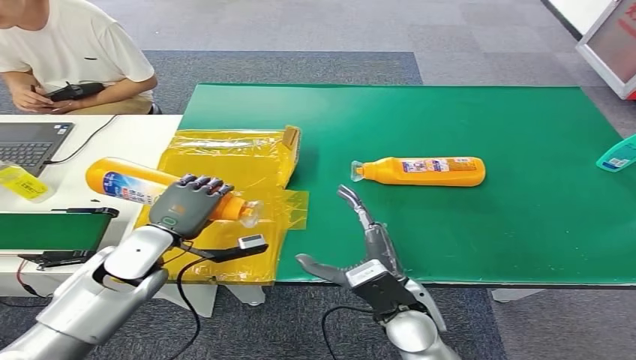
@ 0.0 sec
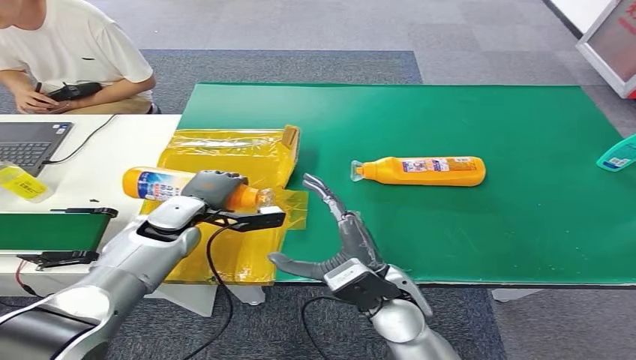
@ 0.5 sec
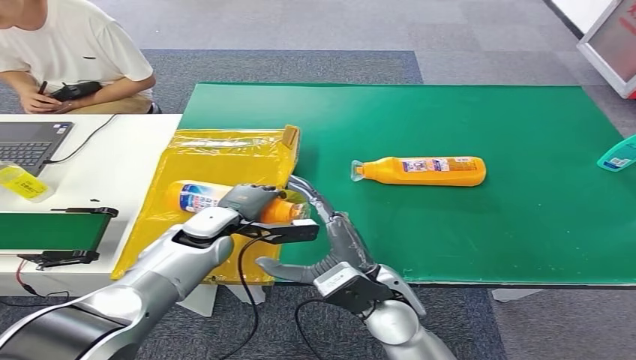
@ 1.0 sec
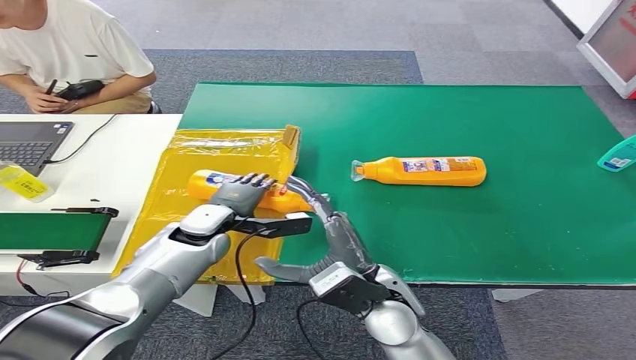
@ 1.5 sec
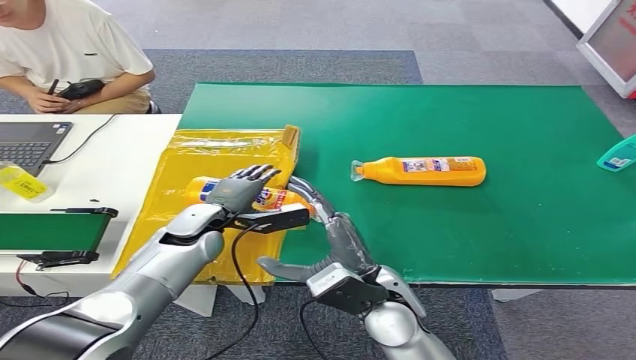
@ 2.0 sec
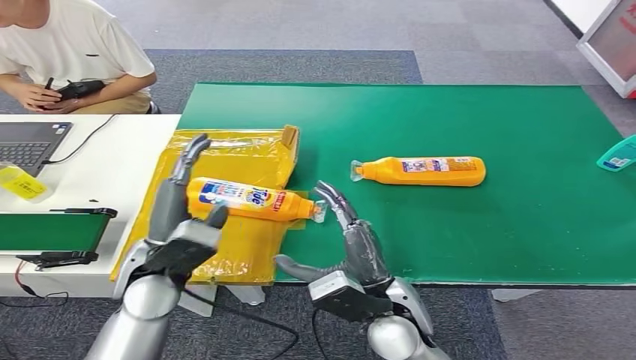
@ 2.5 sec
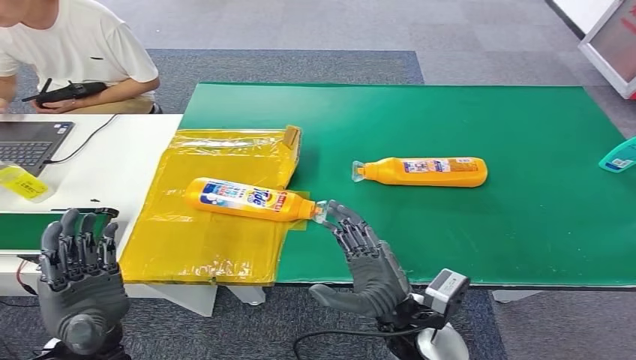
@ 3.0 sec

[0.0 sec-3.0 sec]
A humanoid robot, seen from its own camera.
Step, 0.0 sec to 3.0 sec: Turn the bottle to the front side.
0.0 sec to 1.5 sec: The left hand is displaced to the right and forward by approximately 10 cm. The right hand changes place by about 5 cm.
1.5 sec to 3.0 sec: The left hand shifts about 25 cm backward. Meanwhile the right hand shifts by approximately 5 cm.

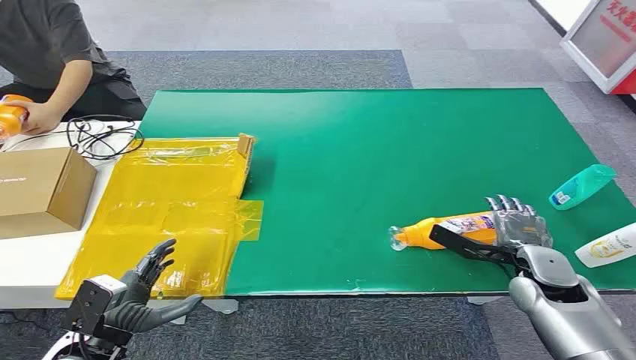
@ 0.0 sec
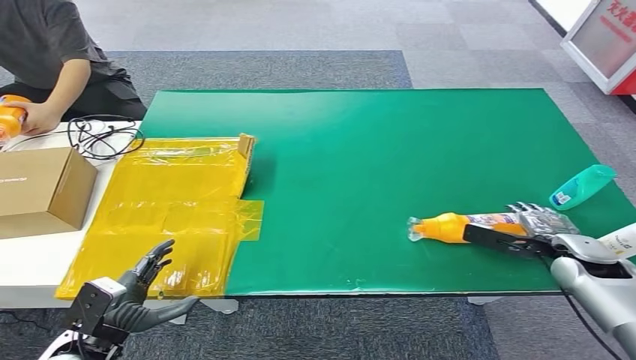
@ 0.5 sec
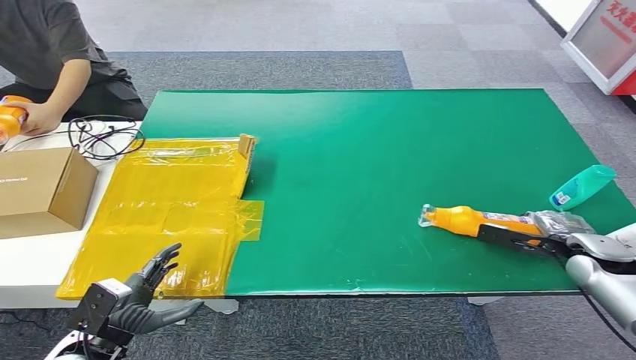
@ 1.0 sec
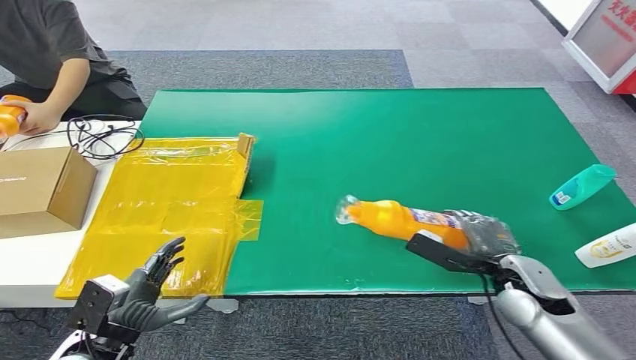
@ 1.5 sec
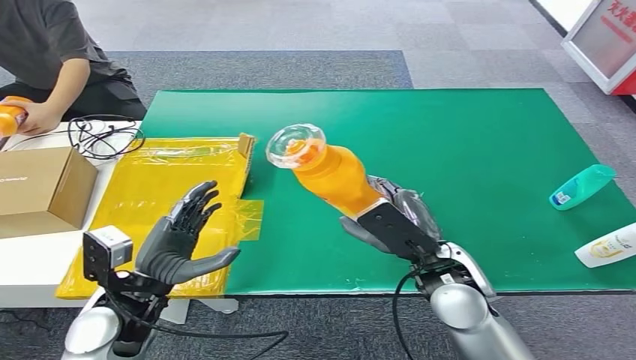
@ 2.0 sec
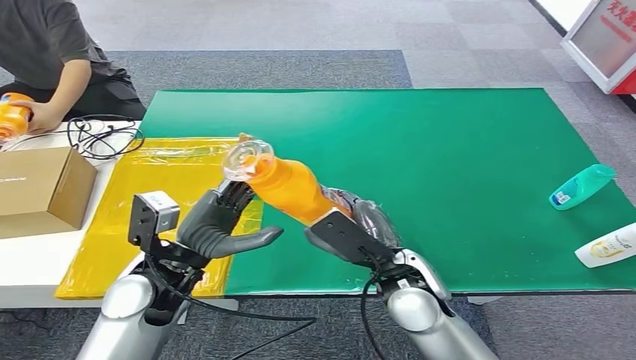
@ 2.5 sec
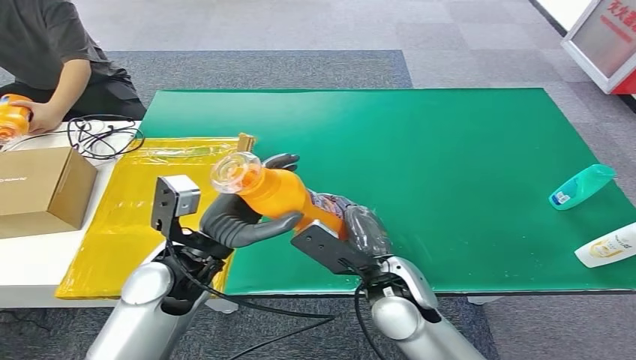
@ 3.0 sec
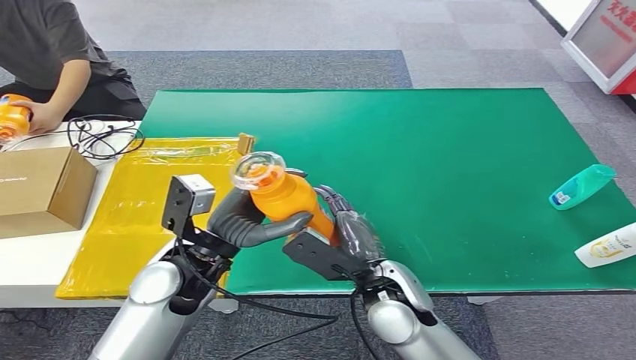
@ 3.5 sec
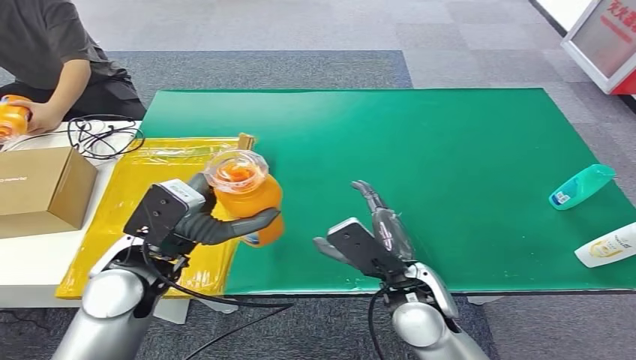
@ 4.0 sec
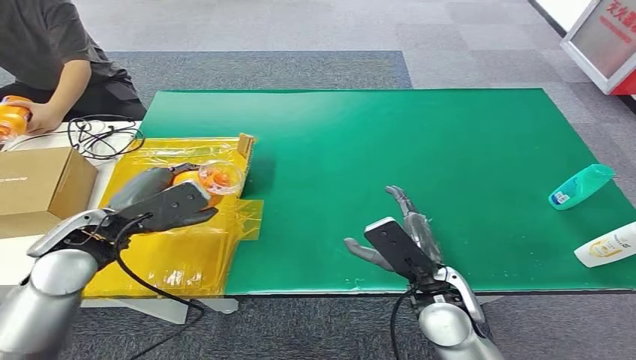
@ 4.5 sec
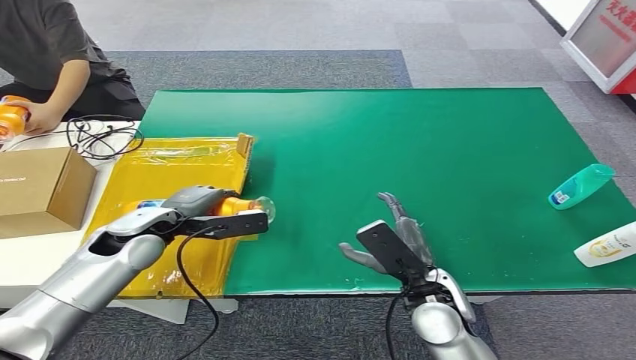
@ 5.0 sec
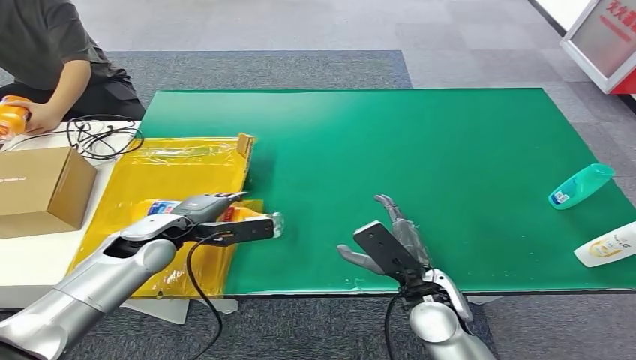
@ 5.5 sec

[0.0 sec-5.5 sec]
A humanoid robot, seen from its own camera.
Step, 0.0 sec to 1.5 sec: Pick up the bottle from the table.
Step, 2.0 sec to 5.5 sec: Turn the bottle to the front side.
3.5 sec to 5.5 sec: The left hand moves to the left and forward, approximately 15 cm. The right hand goes roughly 5 cm to the right.
